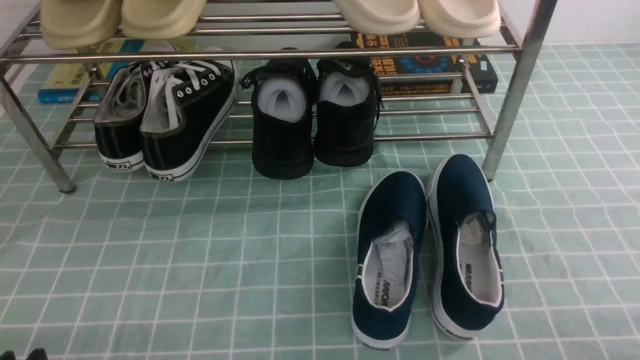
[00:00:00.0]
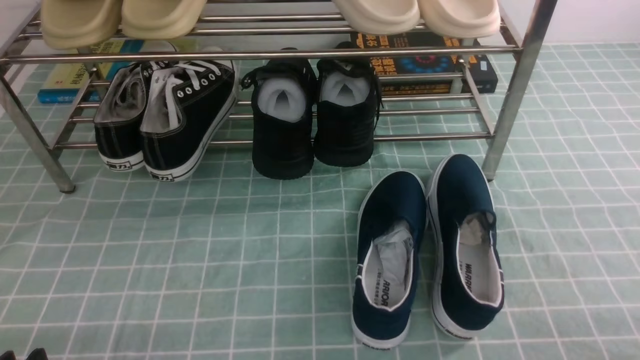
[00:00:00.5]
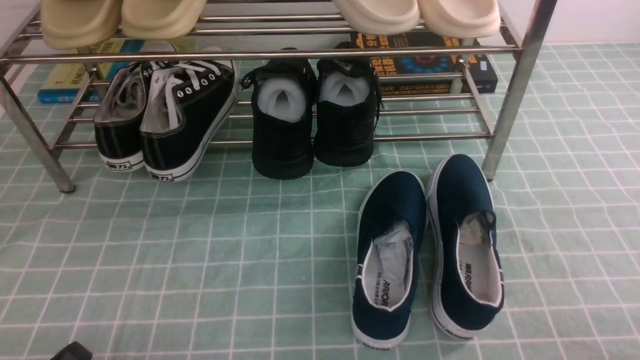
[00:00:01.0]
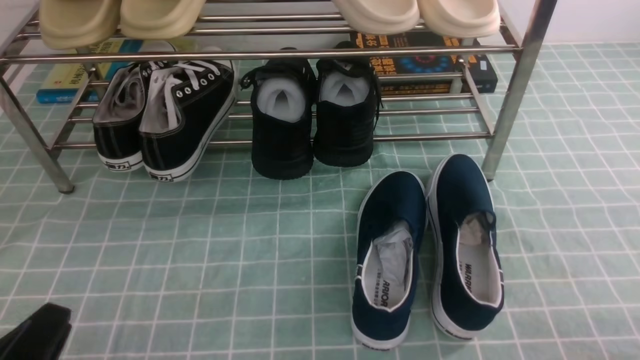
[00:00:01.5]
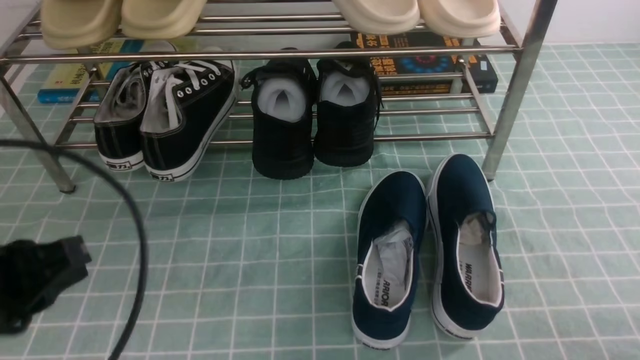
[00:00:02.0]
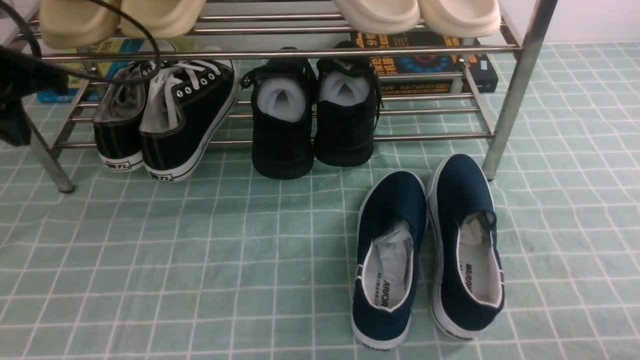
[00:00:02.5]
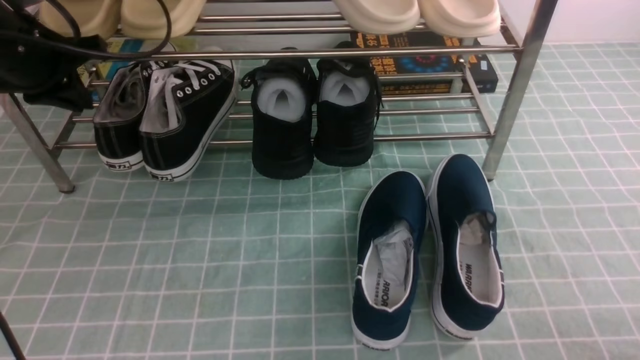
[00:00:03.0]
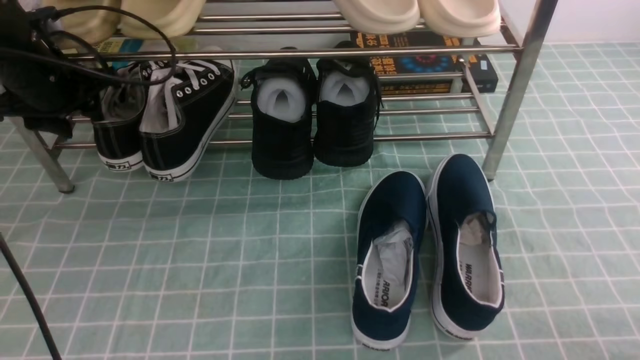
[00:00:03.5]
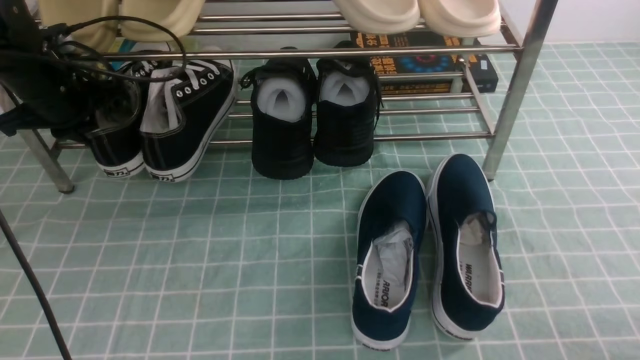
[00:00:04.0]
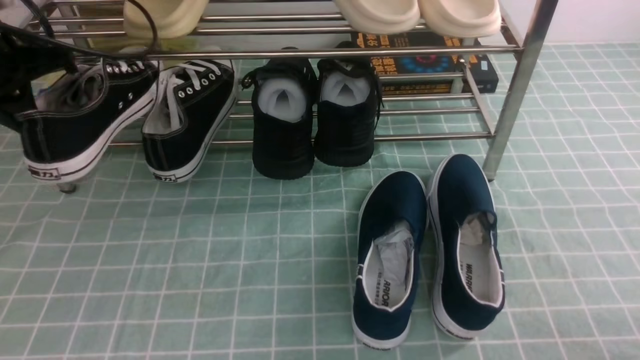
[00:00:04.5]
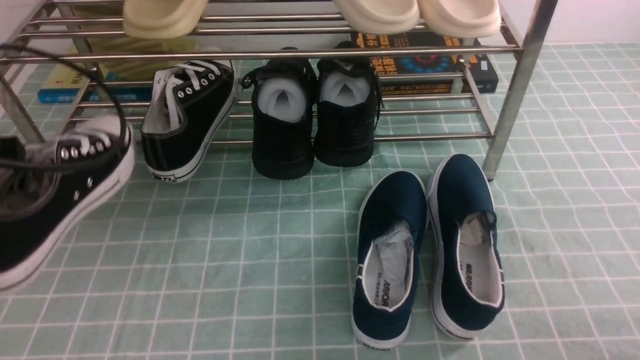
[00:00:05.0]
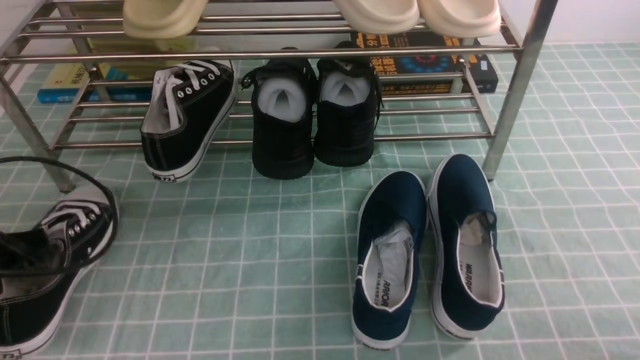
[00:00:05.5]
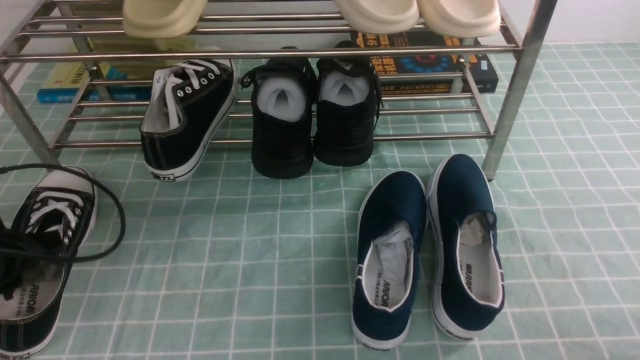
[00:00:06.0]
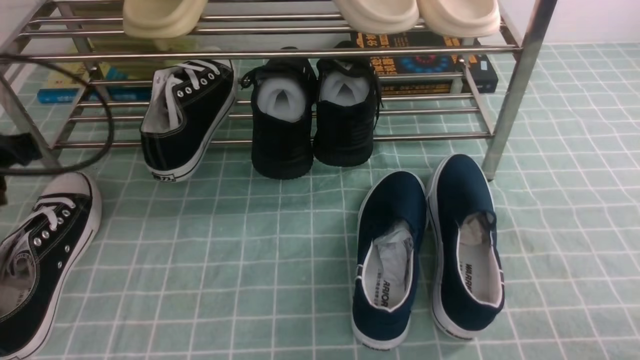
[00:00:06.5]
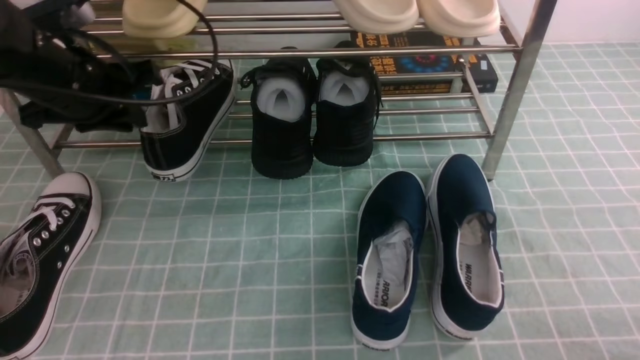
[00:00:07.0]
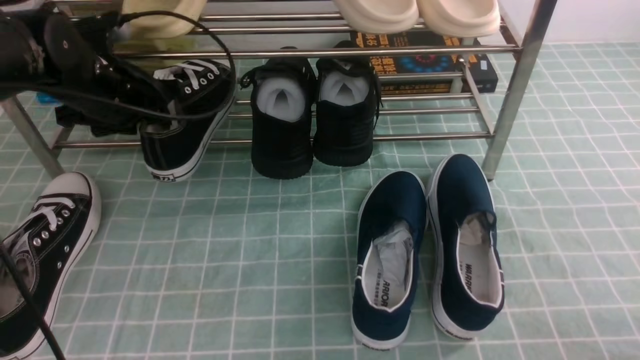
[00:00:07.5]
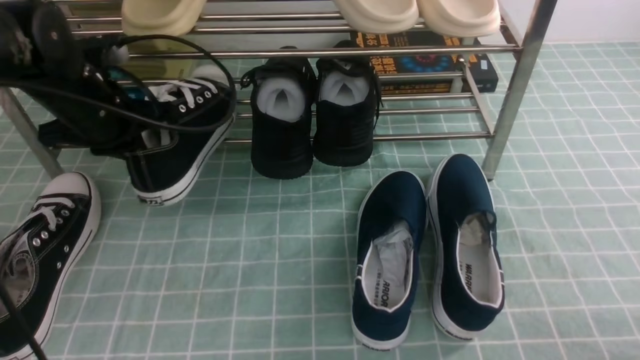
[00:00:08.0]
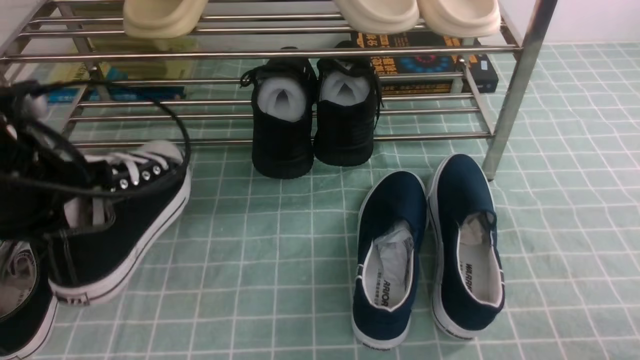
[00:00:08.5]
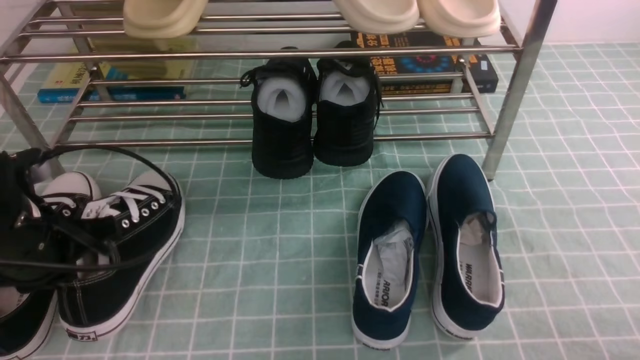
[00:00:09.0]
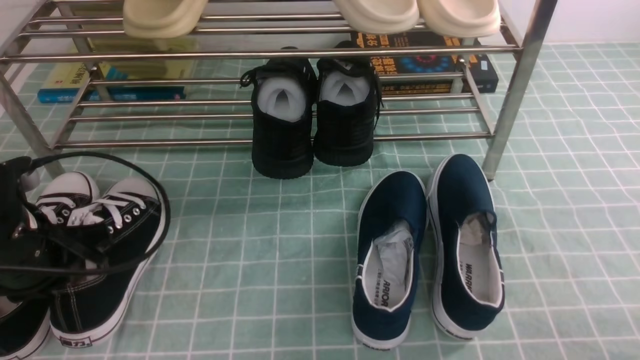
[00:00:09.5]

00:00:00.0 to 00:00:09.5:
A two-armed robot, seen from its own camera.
Step, 00:00:00.0 to 00:00:04.0: use the left arm to clamp a shoe on the left side of the shoe rack.
Step, 00:00:04.5 to 00:00:06.5: Use your left arm to remove the clamped shoe from the shoe rack and put it down.
Step, 00:00:07.0 to 00:00:07.5: use the left arm to clamp a shoe on the left side of the shoe rack.
00:00:00.0 to 00:00:02.0: The left gripper moves upward and forward, approximately 15 cm, and closes.
00:00:02.0 to 00:00:04.0: The left gripper shifts roughly 25 cm forward, and opens, then closes once more.
00:00:04.0 to 00:00:05.5: The left gripper shifts roughly 20 cm backward.
00:00:05.5 to 00:00:07.5: The left gripper heads forward and to the right, covering some 20 cm, and opens up.
00:00:07.5 to 00:00:09.5: The left gripper heads backward, covering roughly 15 cm, and closes.

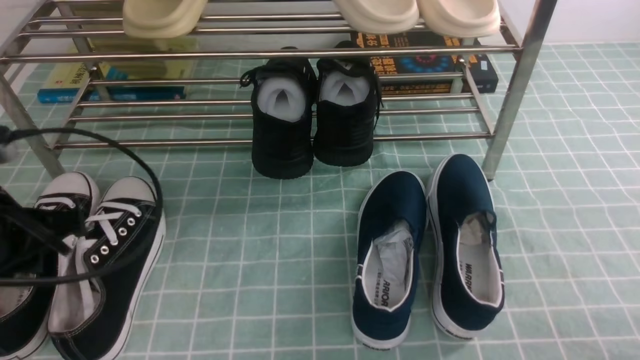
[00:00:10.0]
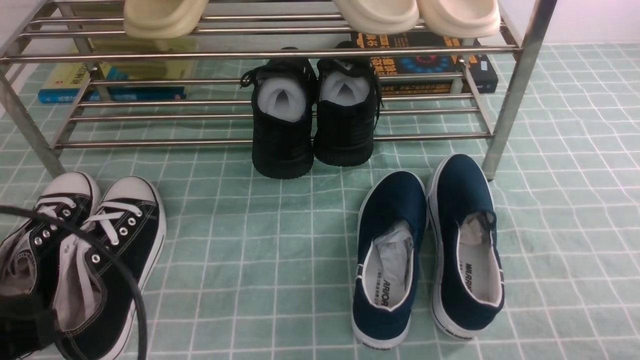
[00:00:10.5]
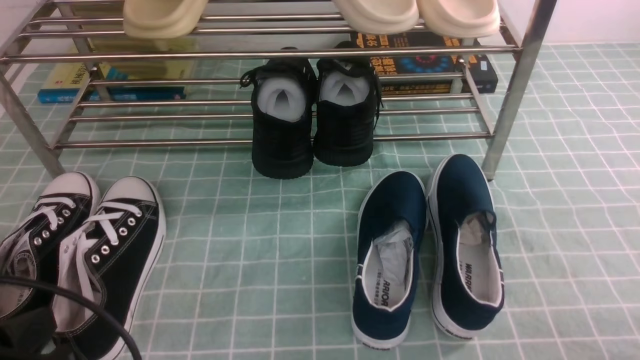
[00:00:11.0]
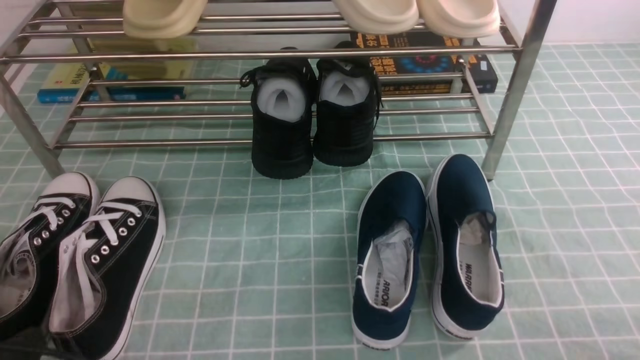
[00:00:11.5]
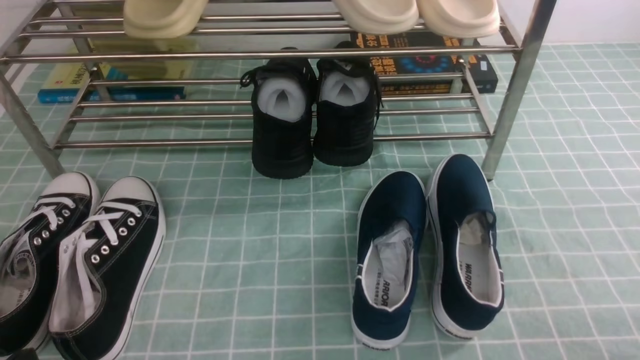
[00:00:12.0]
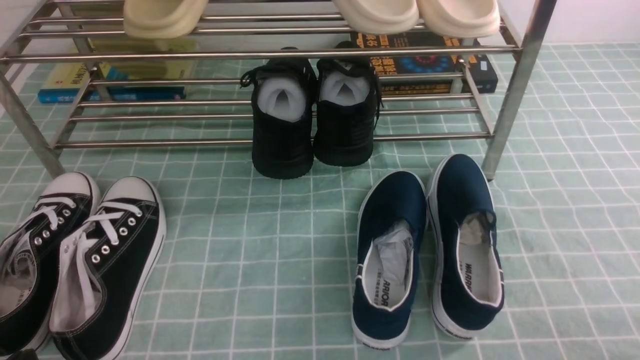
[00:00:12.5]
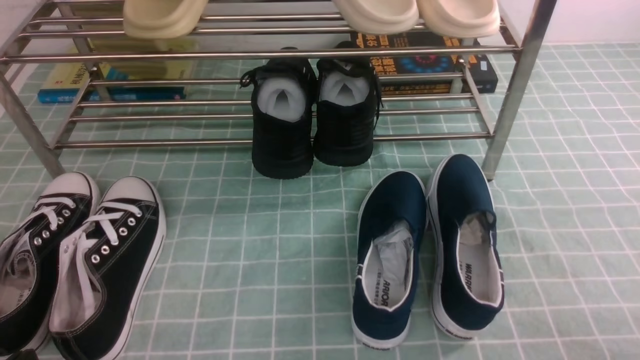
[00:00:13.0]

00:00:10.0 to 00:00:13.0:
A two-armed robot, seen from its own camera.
00:00:10.0 to 00:00:11.5: The left gripper travels backward and downward by about 15 cm.

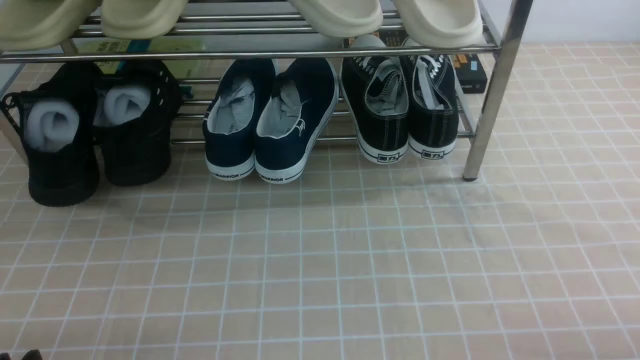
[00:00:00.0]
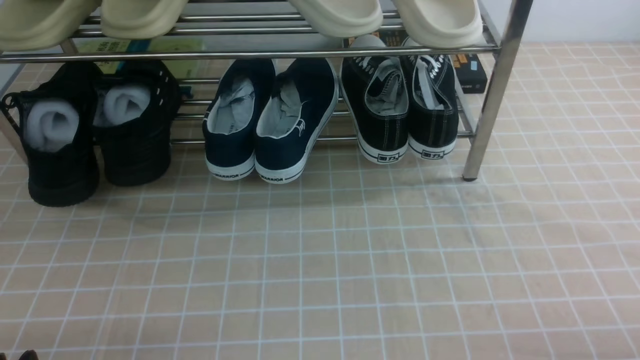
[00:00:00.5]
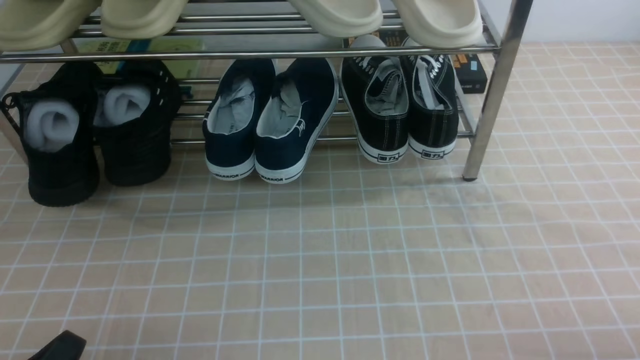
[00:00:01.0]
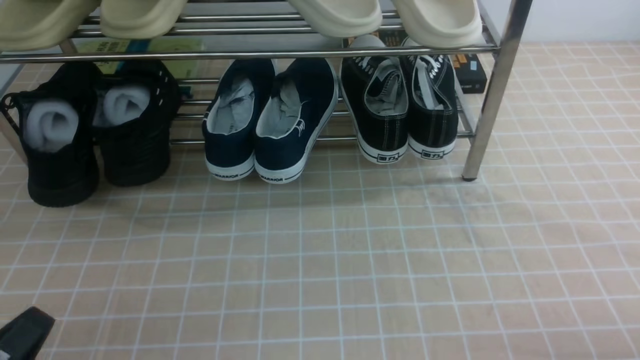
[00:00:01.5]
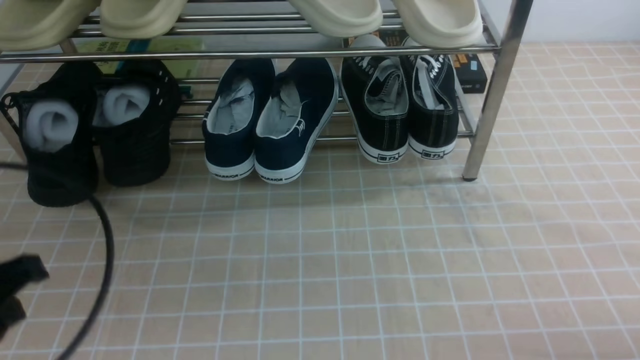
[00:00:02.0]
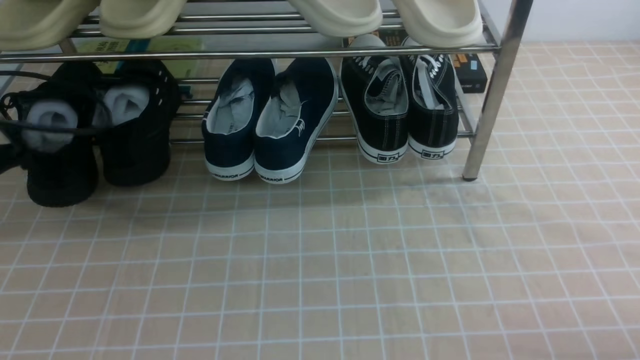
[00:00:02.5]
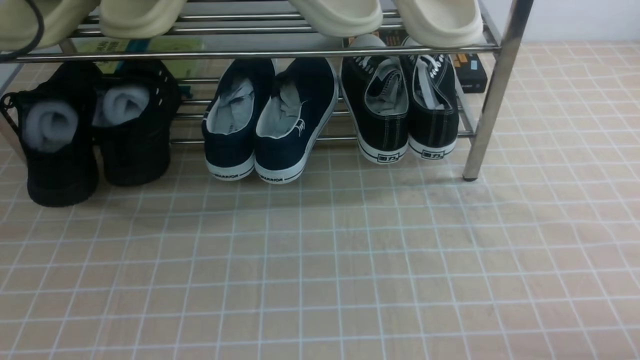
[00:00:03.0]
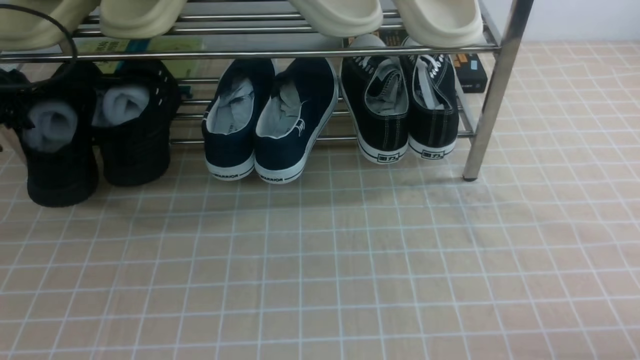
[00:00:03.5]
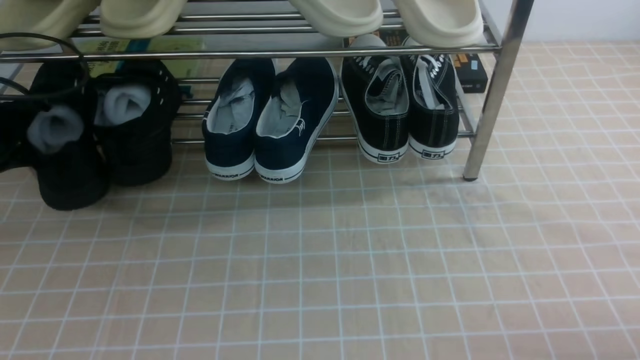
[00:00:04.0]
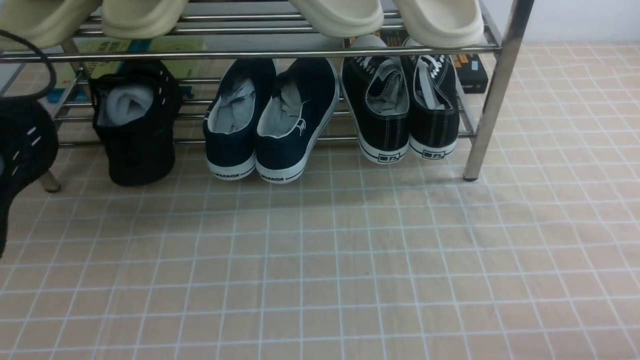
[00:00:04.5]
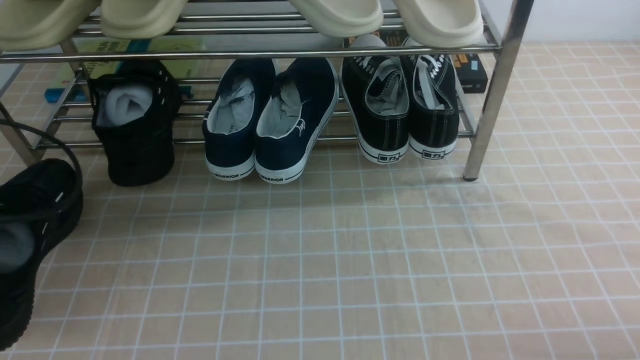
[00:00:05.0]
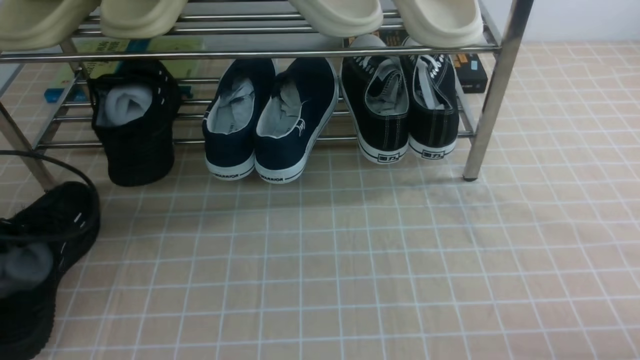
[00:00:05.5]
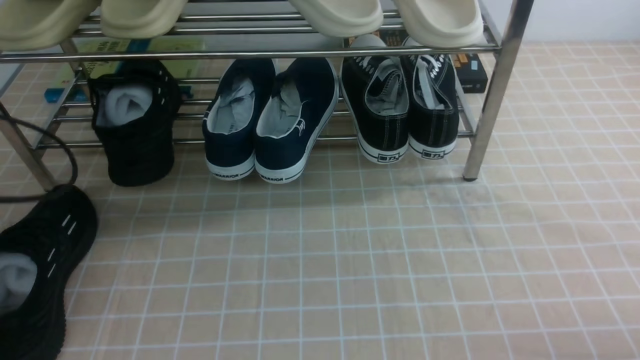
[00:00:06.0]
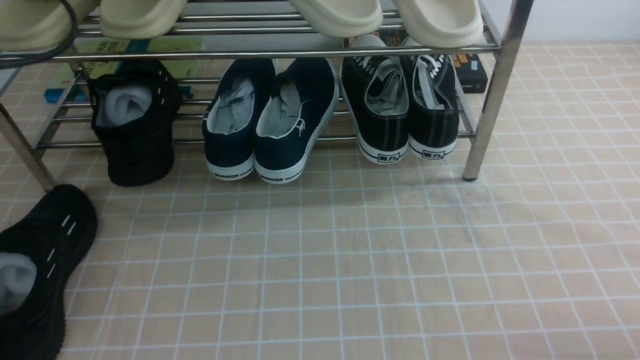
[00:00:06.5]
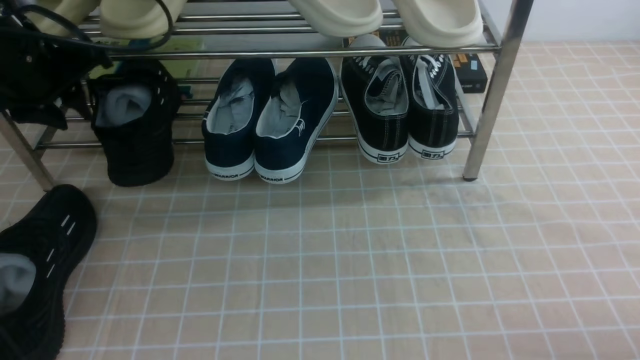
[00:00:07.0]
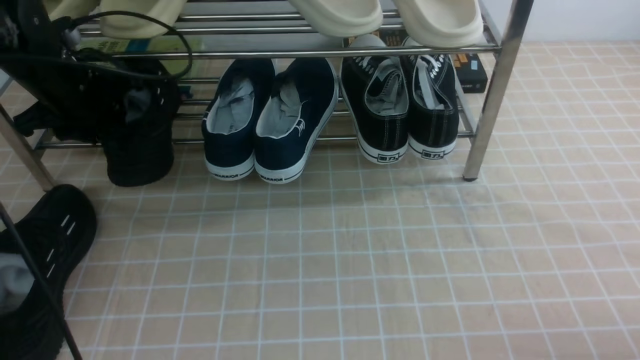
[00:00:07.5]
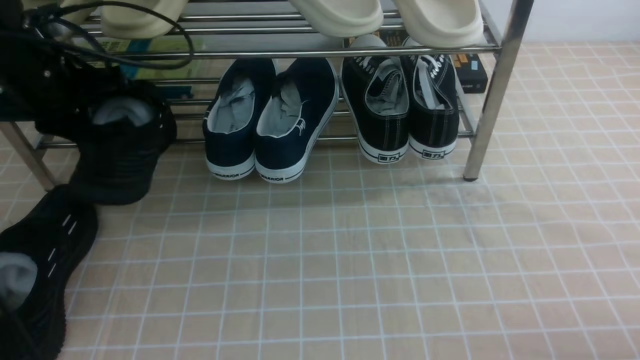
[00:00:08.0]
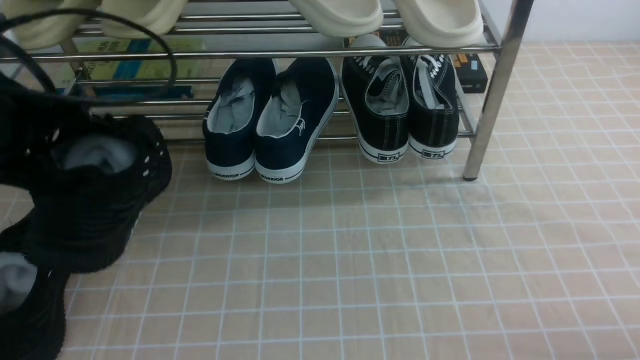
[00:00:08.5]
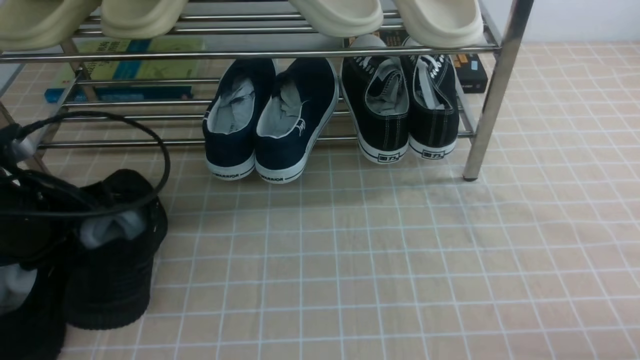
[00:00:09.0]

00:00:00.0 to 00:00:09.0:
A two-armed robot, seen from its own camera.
Step, 00:00:00.0 to 00:00:04.0: use the left arm to clamp a shoe on the left side of the shoe rack.
Step, 00:00:04.5 to 00:00:06.5: Use your left arm to remove the clamped shoe from the shoe rack and put it down.
Step, 00:00:07.0 to 00:00:08.0: use the left arm to clamp a shoe on the left side of the shoe rack.
00:00:00.0 to 00:00:02.0: The left gripper heads upward and forward, covering some 15 cm, and closes its fingers.
00:00:02.0 to 00:00:04.5: The left gripper is displaced forward and to the left by roughly 15 cm, and opens and closes again.
00:00:04.5 to 00:00:07.0: The left gripper travels forward and to the right by roughly 15 cm, and opens its fingers.
00:00:07.0 to 00:00:09.0: The left gripper travels backward and downward by approximately 15 cm, and closes its fingers.
